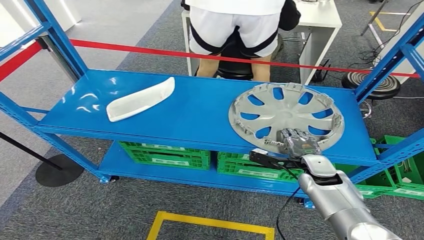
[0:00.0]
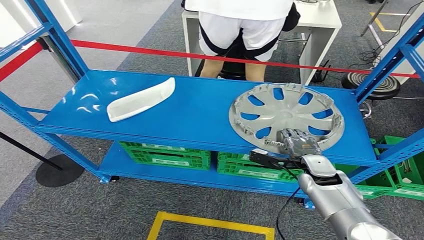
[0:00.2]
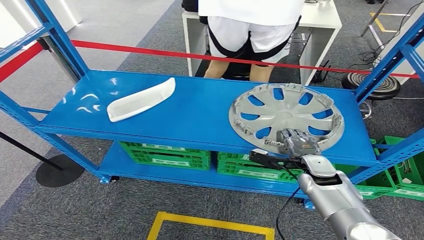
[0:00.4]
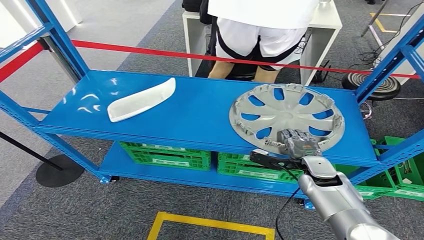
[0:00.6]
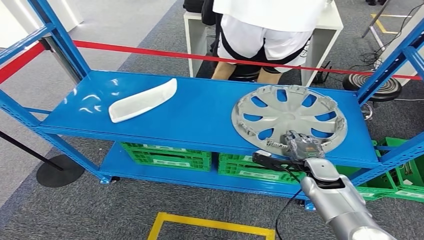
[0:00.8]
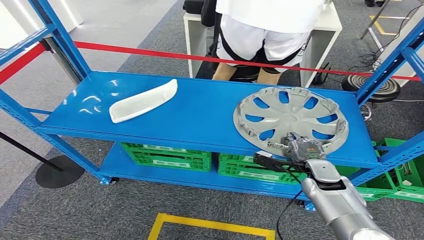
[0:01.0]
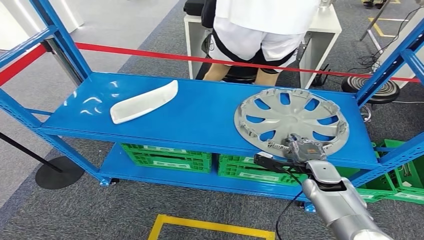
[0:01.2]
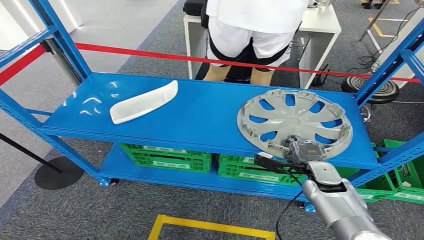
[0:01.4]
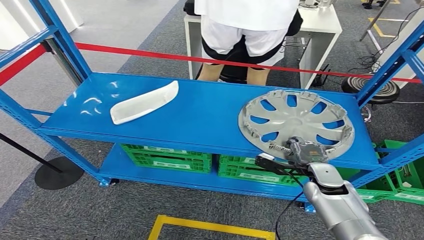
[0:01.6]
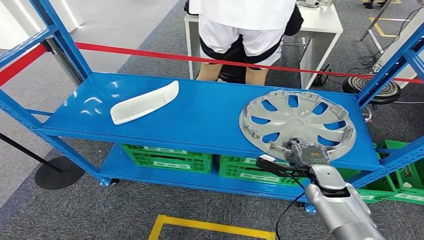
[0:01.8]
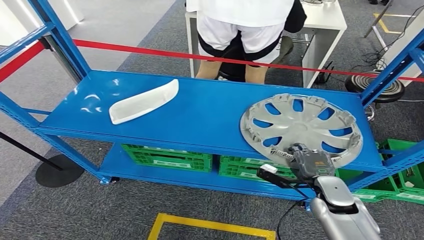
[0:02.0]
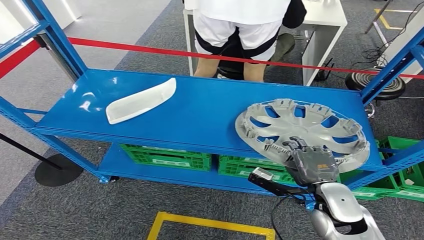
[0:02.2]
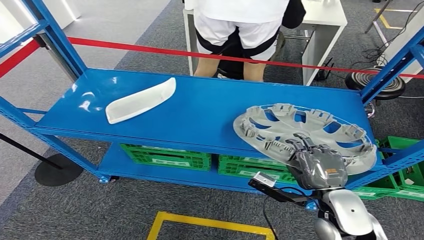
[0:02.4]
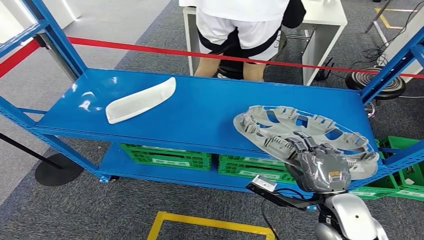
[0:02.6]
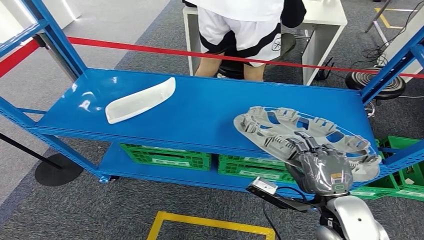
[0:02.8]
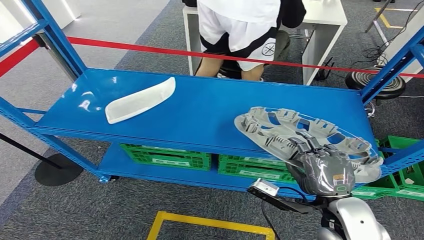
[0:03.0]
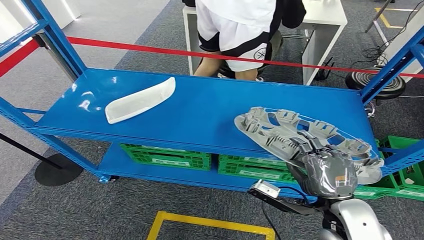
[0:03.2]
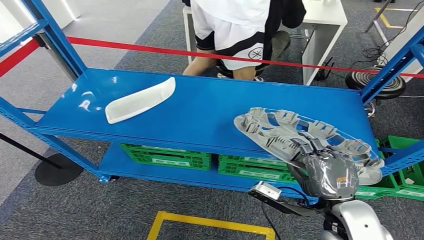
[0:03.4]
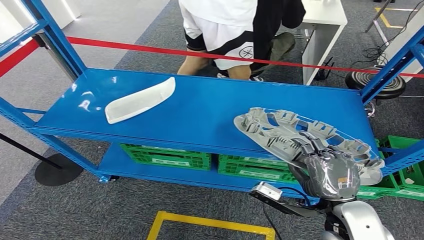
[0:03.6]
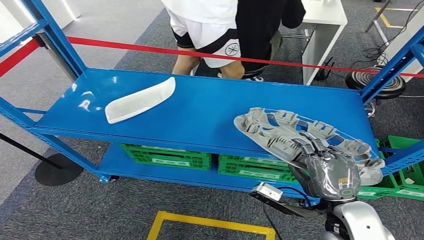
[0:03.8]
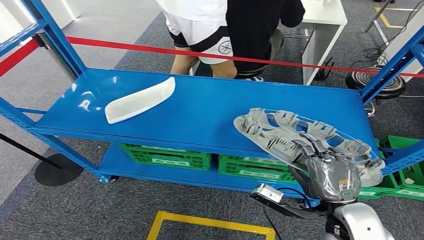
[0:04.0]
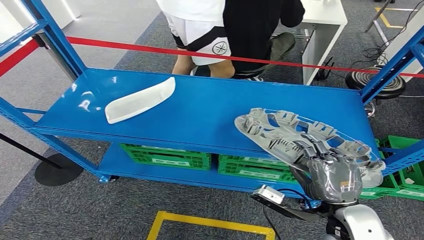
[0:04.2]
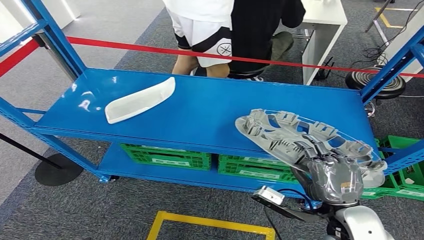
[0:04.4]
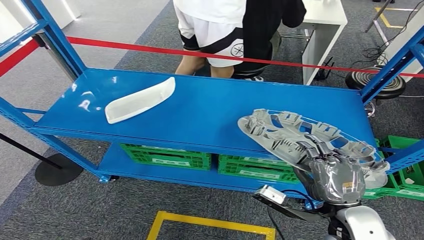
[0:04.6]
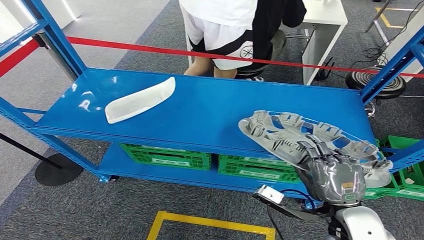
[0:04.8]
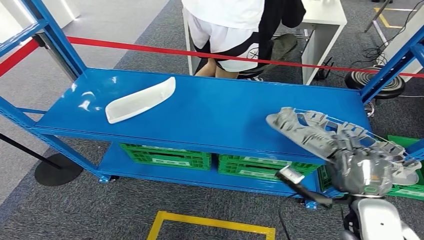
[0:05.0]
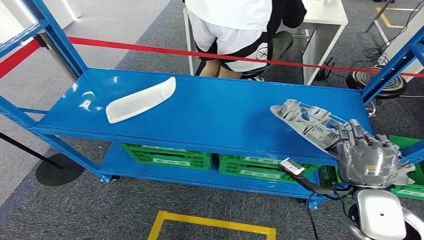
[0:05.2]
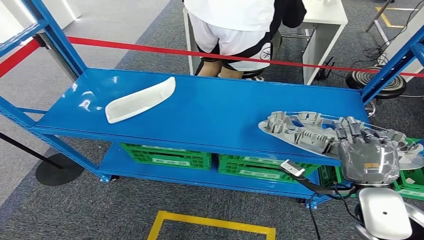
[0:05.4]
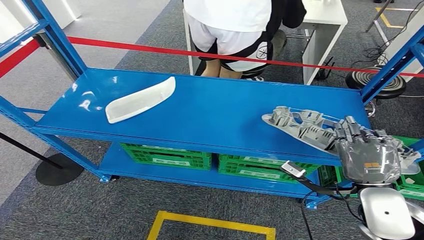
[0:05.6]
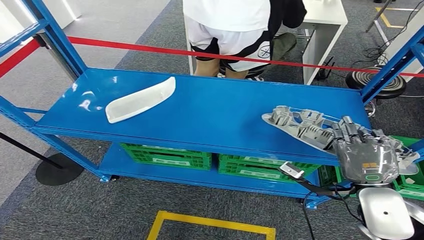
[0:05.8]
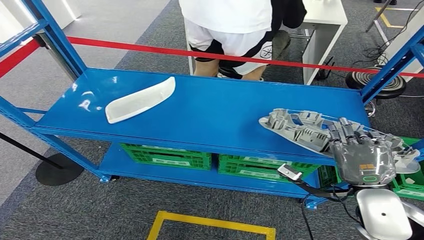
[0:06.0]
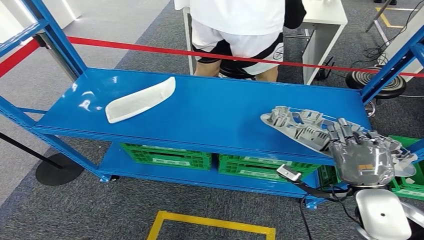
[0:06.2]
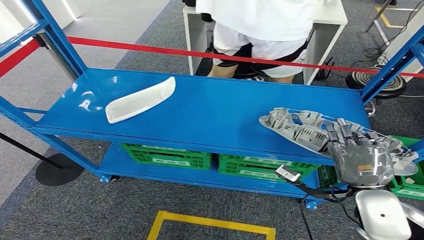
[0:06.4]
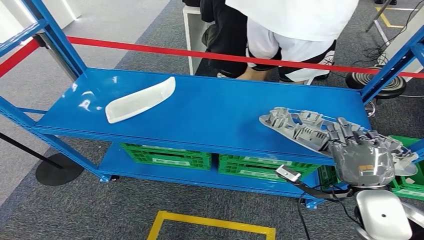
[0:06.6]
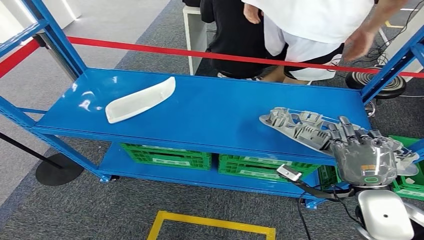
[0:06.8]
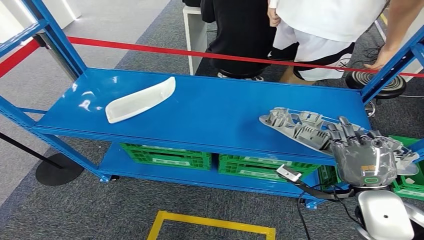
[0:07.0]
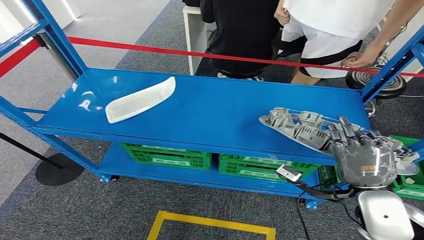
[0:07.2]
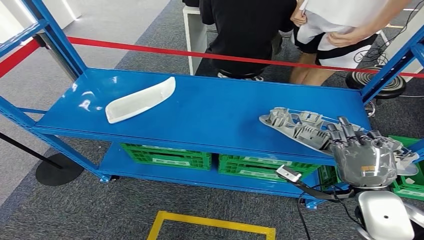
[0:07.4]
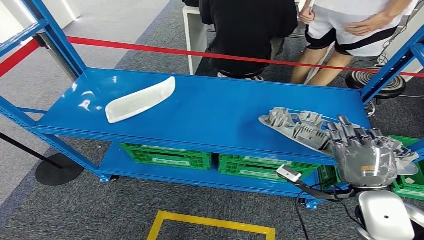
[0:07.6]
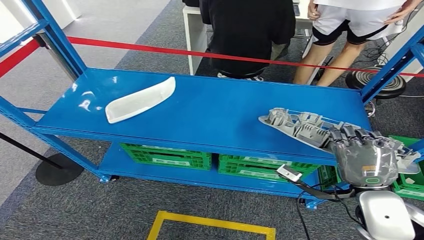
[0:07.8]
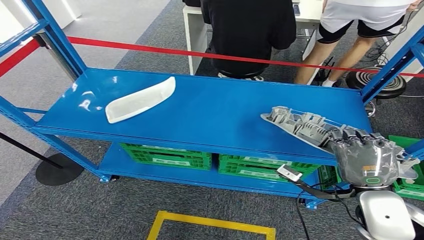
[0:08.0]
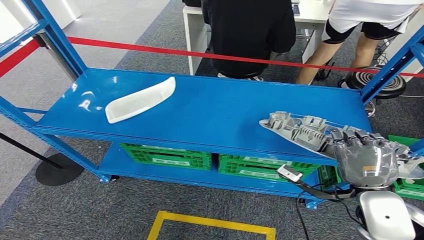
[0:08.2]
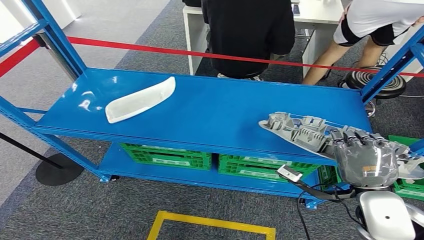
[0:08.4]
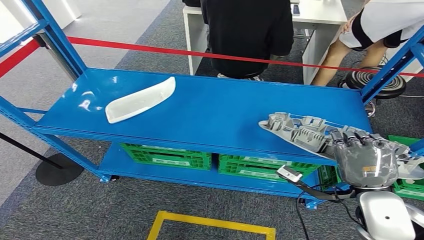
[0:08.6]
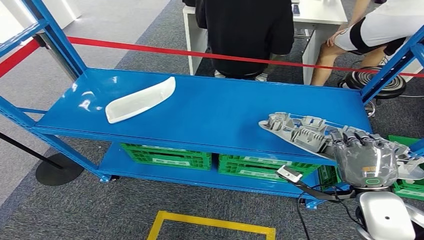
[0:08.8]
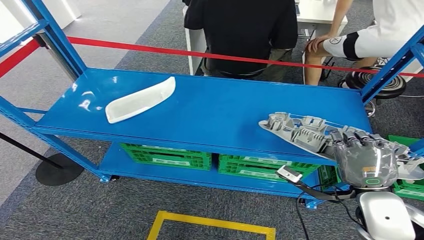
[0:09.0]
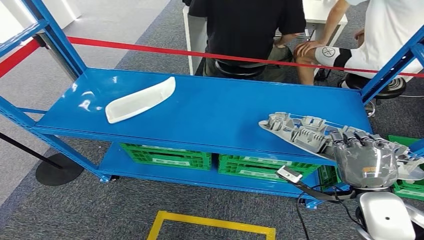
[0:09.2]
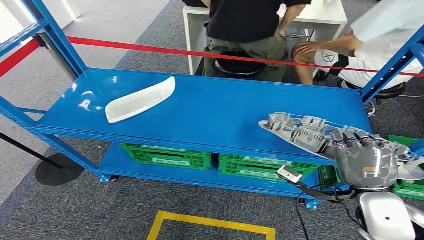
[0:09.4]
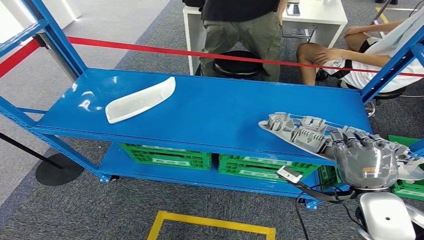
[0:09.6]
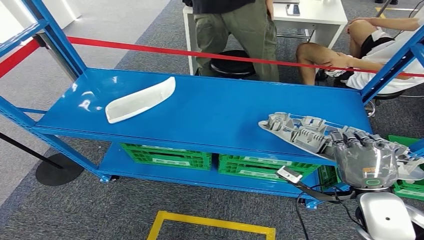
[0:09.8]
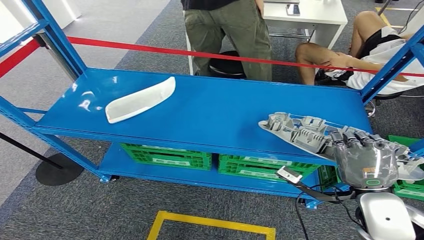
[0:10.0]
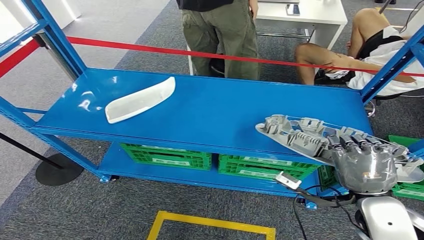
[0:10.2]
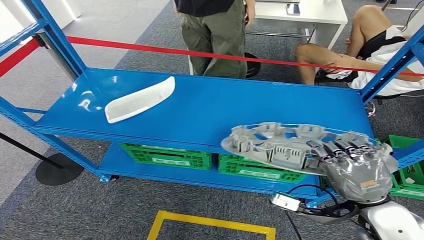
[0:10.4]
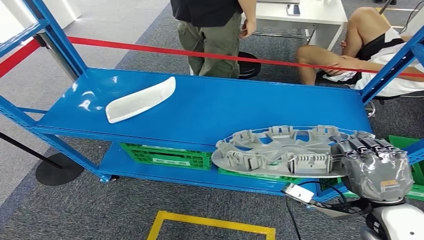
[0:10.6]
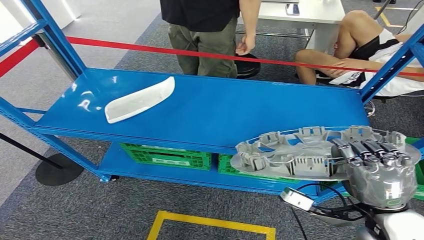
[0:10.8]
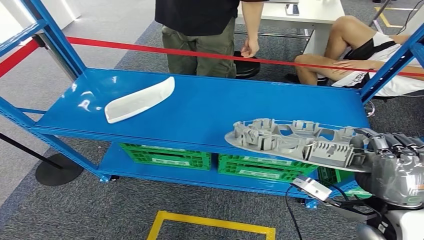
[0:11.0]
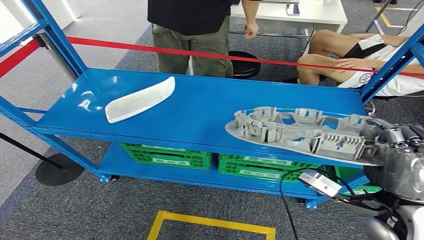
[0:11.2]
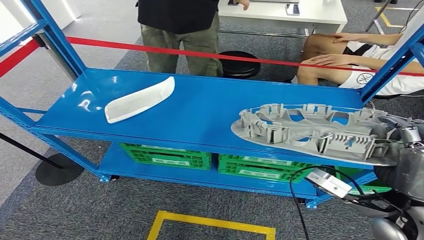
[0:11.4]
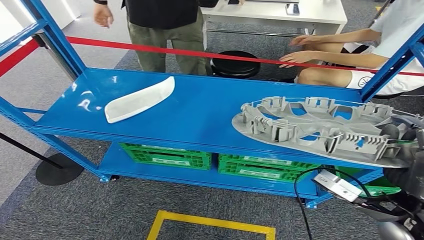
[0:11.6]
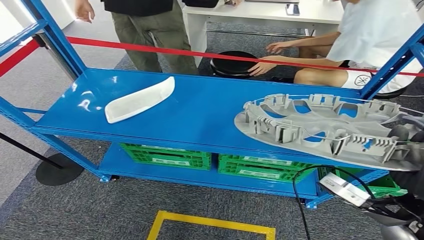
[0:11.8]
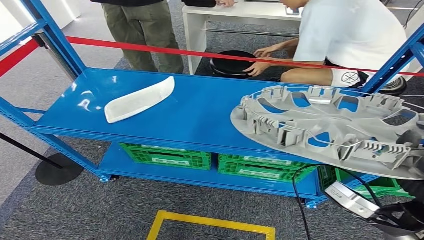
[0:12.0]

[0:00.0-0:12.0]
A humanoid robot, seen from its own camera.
Step, 0:00.0 to 0:12.0: Pick up the small parts from the shelf.
0:03.0 to 0:04.4: The hands make only small movements.
0:04.4 to 0:06.0: The right hand changes place by about 5 cm.
0:06.0 to 0:09.0: Both hands stay about where they are.

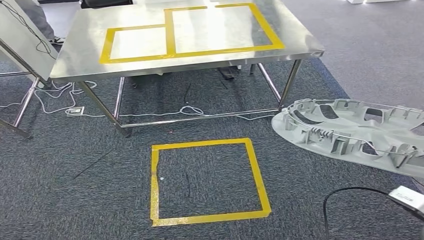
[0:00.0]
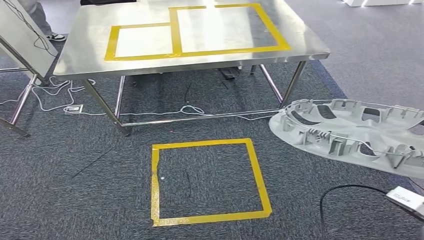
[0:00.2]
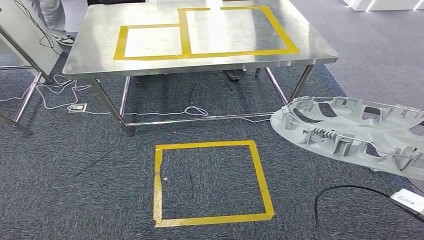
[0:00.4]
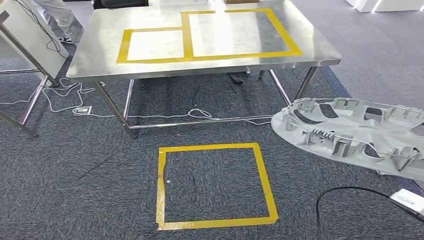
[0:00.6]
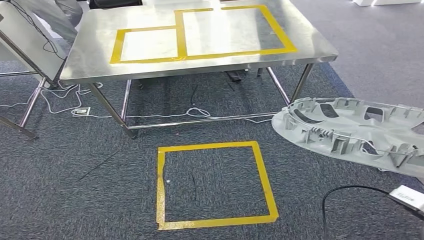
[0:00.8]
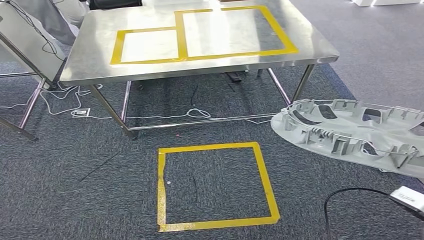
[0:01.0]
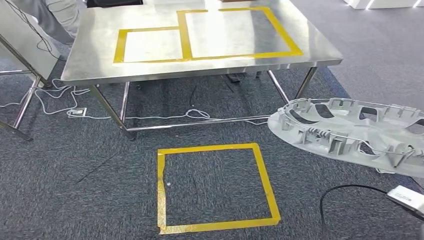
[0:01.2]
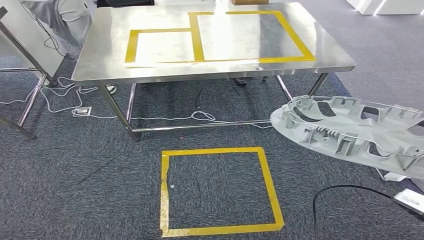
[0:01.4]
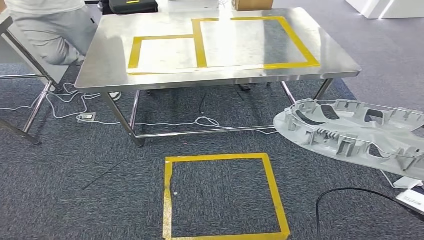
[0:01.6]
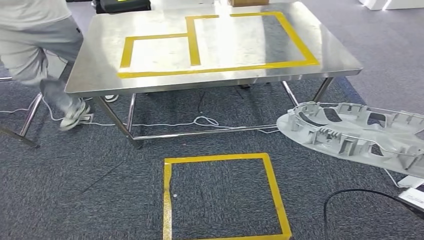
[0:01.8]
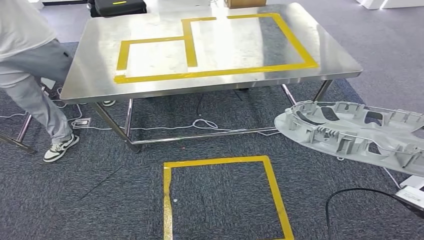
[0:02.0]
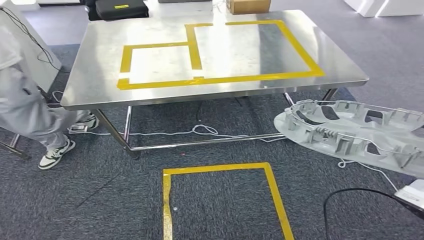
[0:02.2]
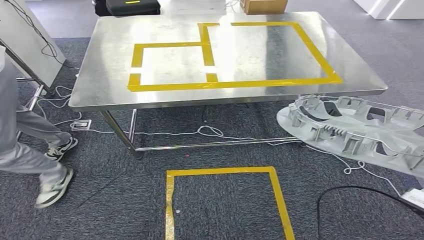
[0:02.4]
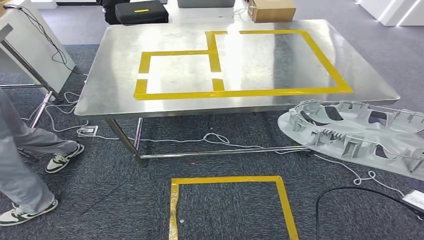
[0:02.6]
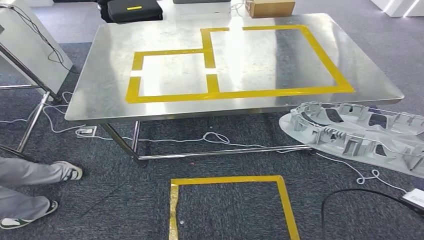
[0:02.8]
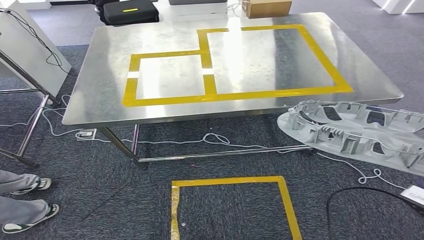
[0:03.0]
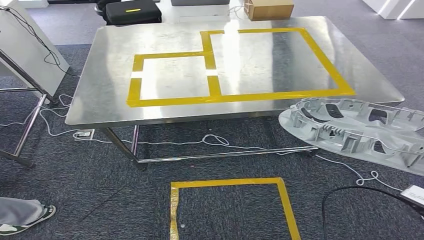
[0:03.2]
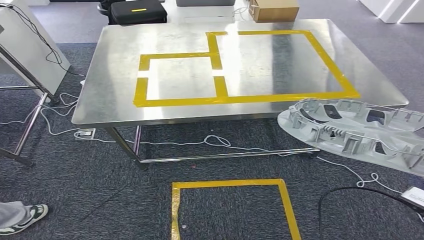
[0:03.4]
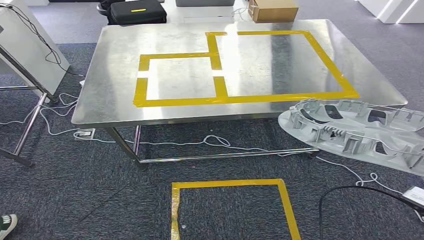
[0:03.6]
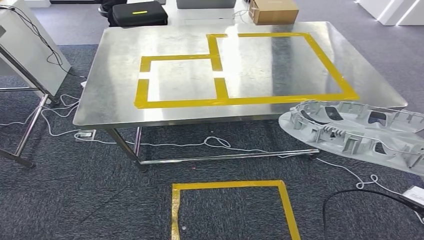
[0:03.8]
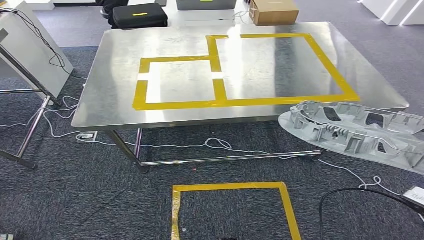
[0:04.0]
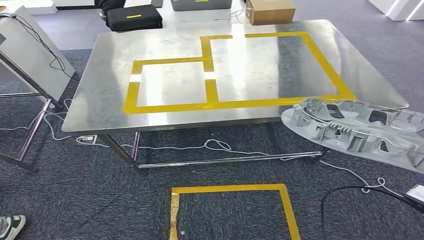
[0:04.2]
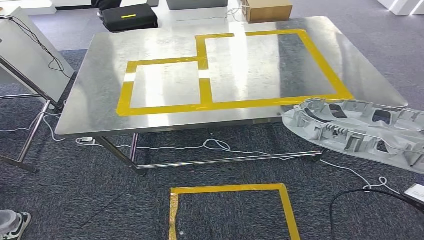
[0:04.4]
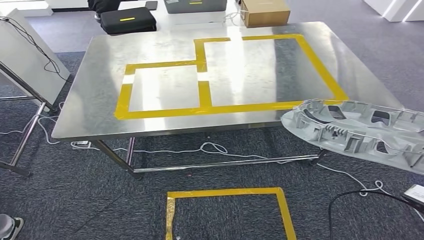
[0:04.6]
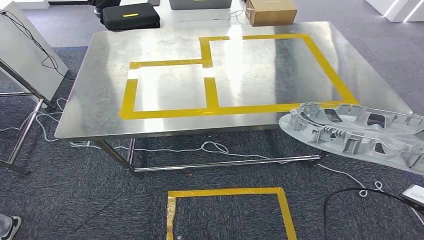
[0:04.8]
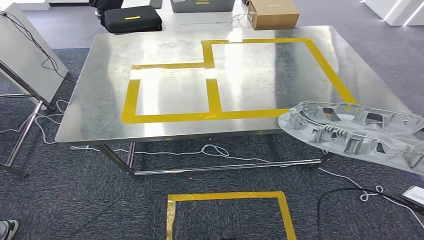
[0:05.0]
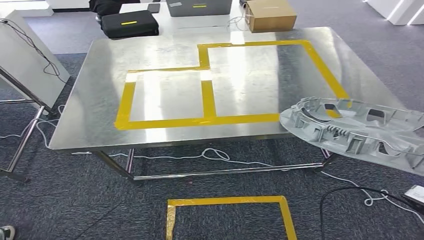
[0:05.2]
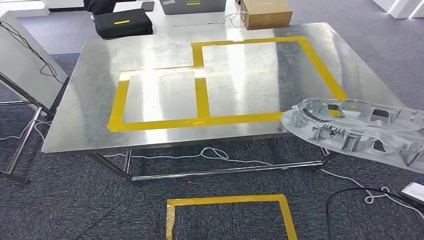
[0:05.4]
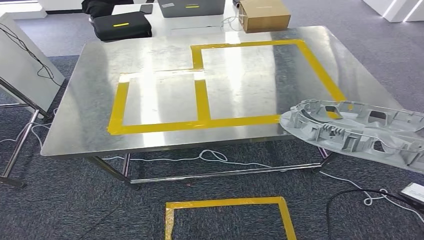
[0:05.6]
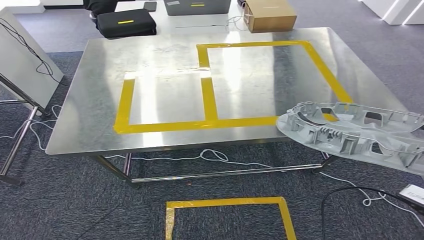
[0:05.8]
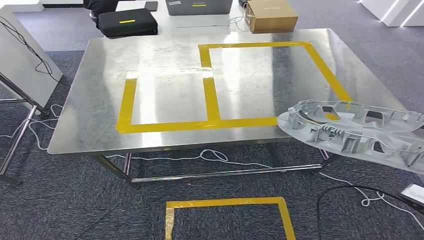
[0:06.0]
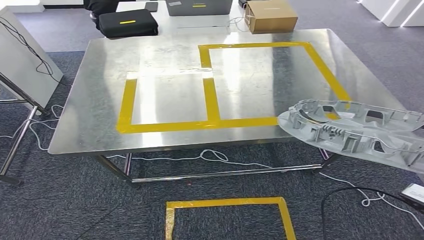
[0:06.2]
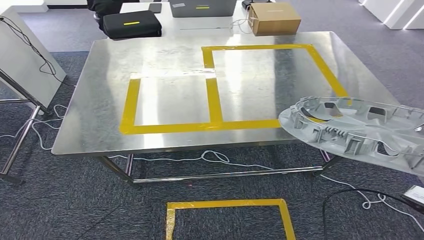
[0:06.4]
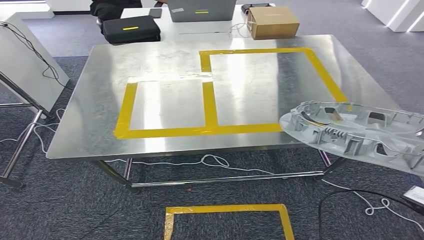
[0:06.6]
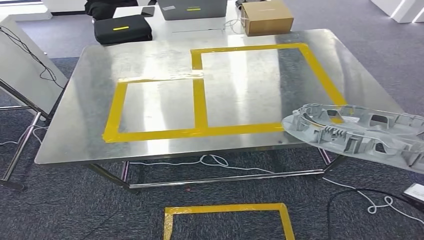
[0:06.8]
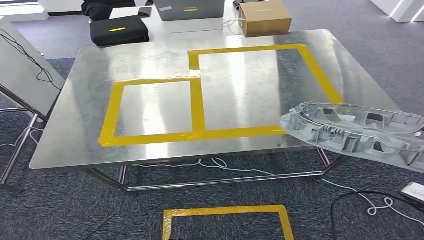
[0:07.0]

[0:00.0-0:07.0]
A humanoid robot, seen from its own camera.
Step, 0:00.0 to 0:06.8: Move the small parts to the workbench.
